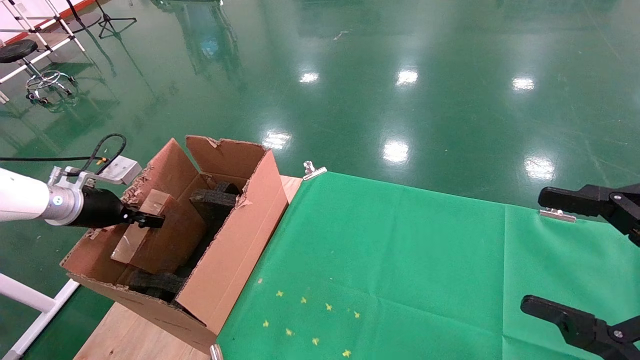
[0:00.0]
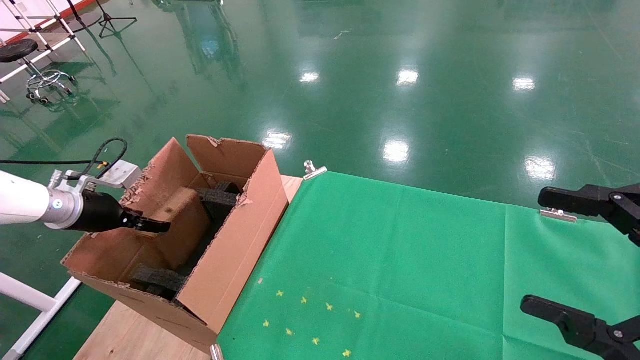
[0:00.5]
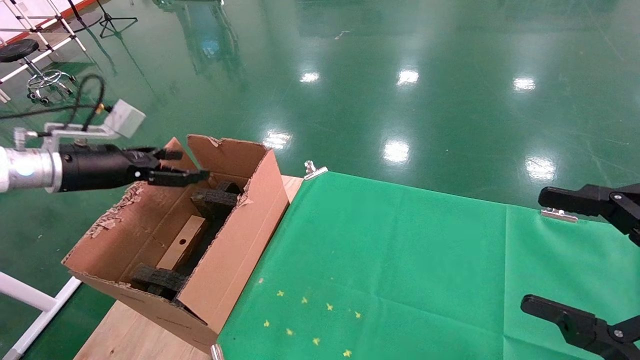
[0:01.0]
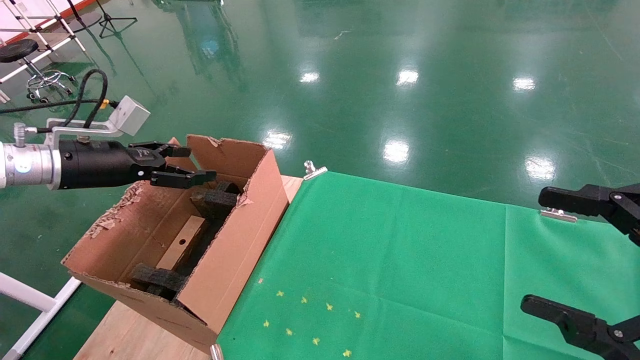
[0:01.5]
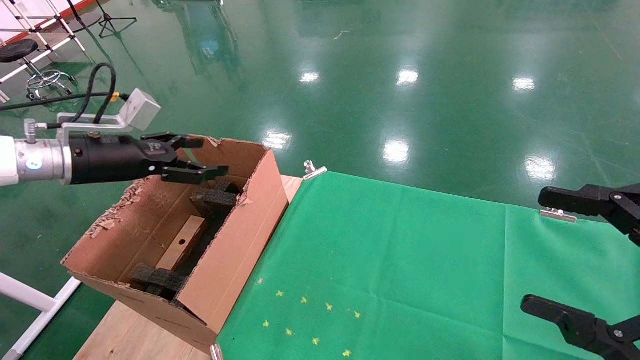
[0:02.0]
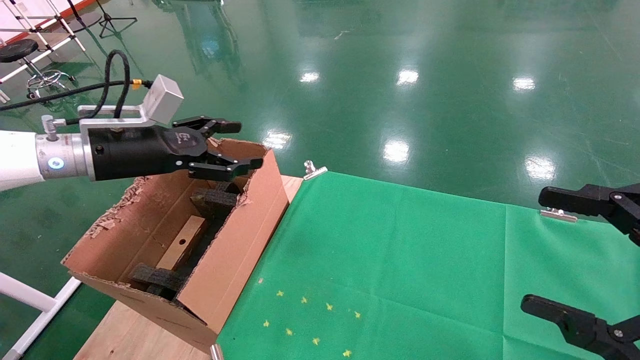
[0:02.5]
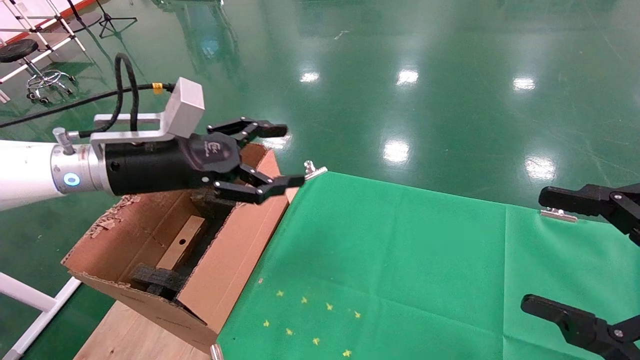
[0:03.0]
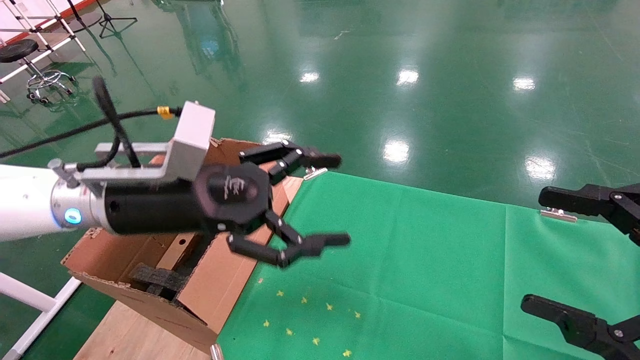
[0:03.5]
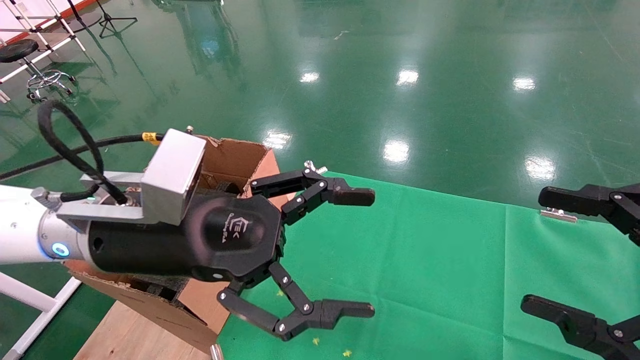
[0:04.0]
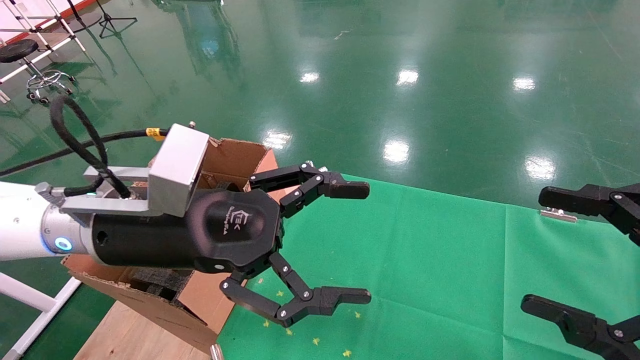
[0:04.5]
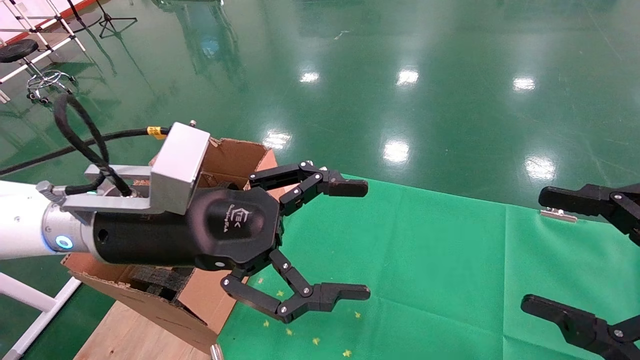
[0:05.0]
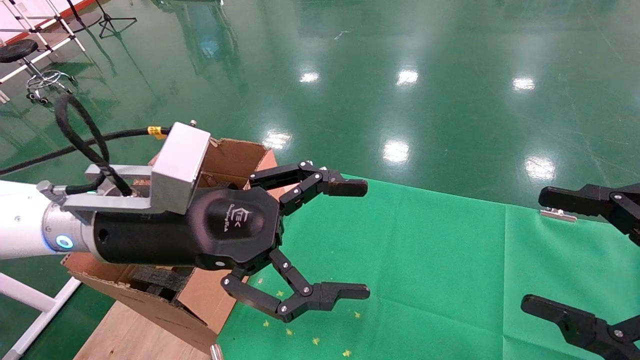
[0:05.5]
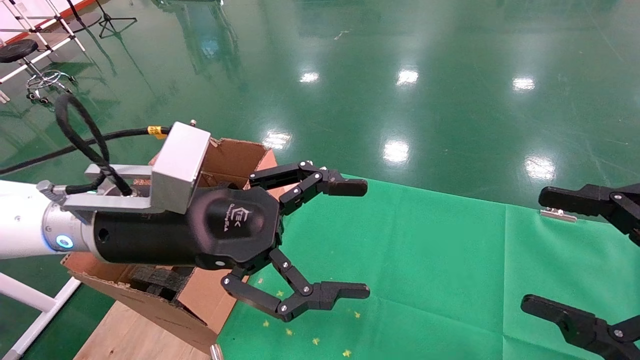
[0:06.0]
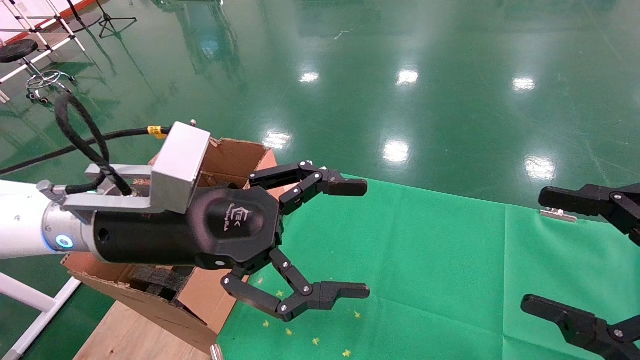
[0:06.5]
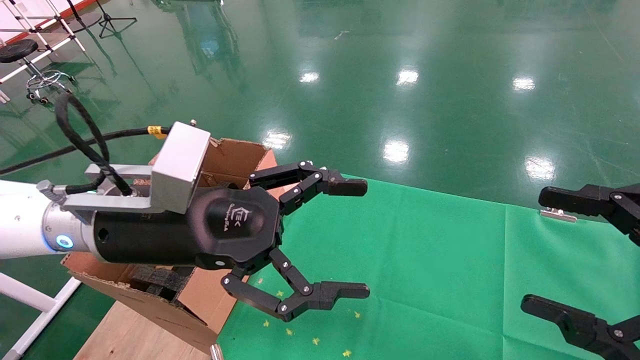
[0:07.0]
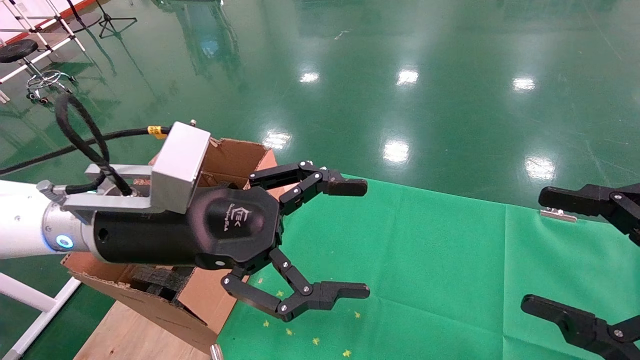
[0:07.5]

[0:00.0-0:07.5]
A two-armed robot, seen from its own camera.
Task of the whole recording: using a robotic arm to pick up a cardboard box and palace it the carton.
0:00.0 to 0:02.0: The left gripper moves upward and to the right, roughly 15 cm, and opens up.
0:02.0 to 0:04.0: The left gripper shifts approximately 25 cm to the right and backward.
0:04.0 to 0:07.5: Neither gripper changes place.

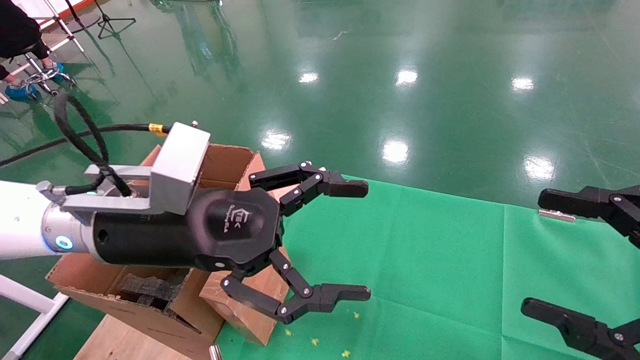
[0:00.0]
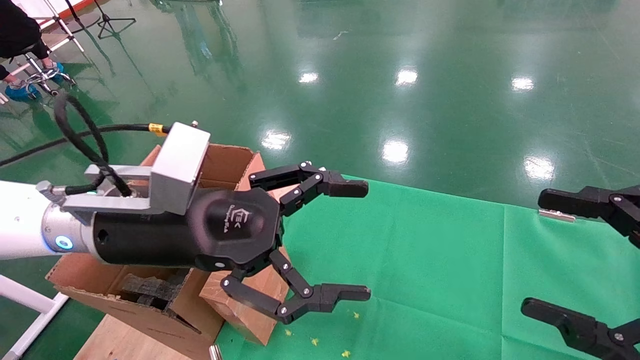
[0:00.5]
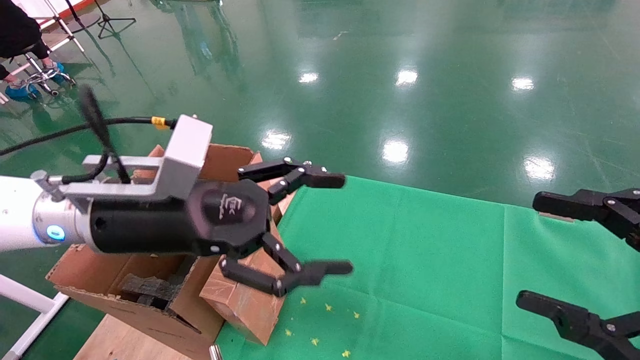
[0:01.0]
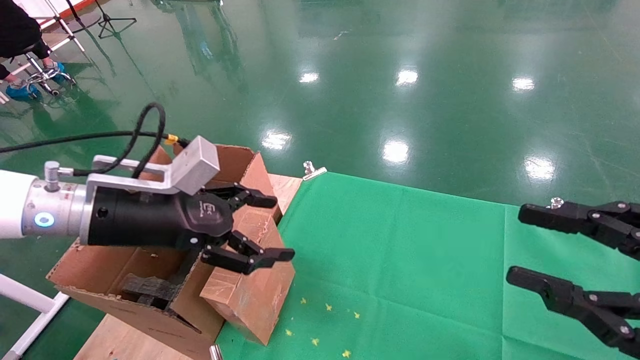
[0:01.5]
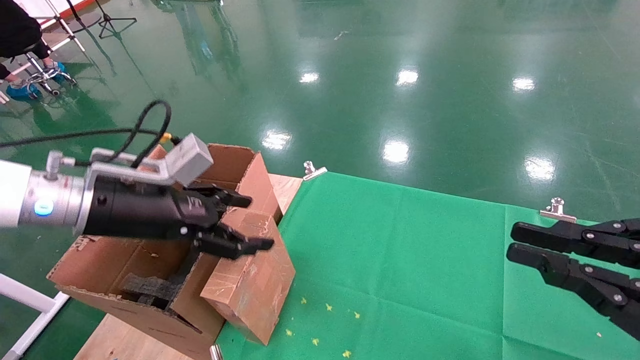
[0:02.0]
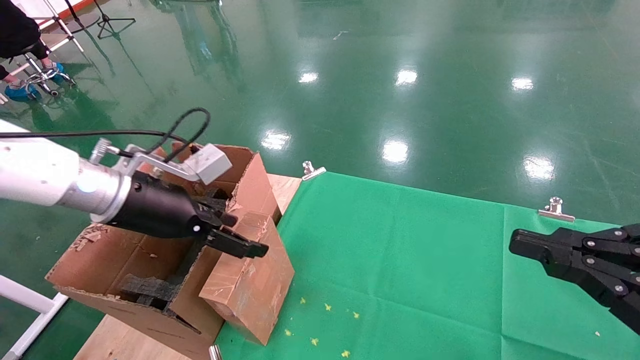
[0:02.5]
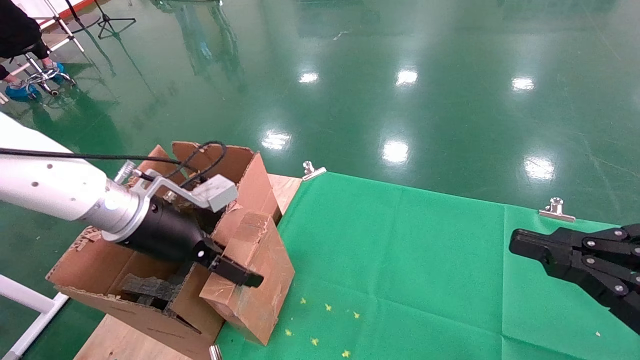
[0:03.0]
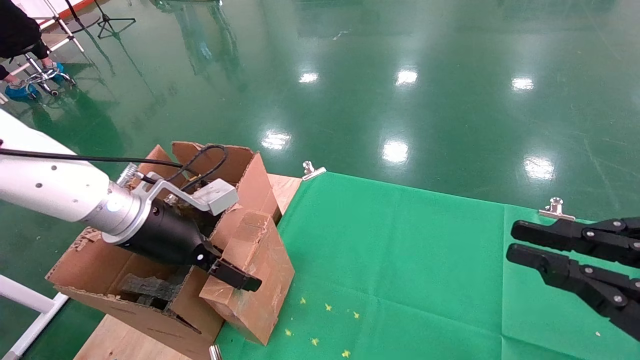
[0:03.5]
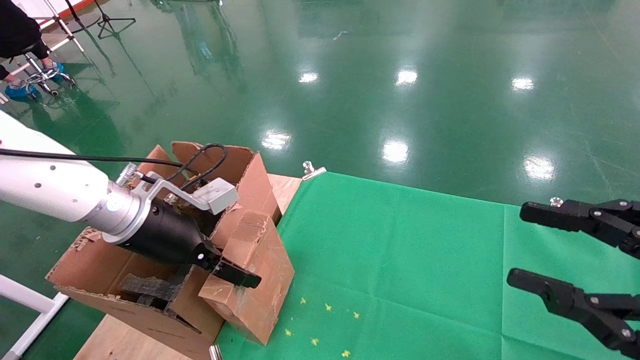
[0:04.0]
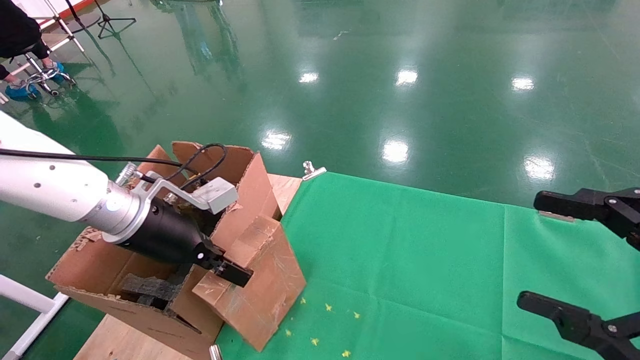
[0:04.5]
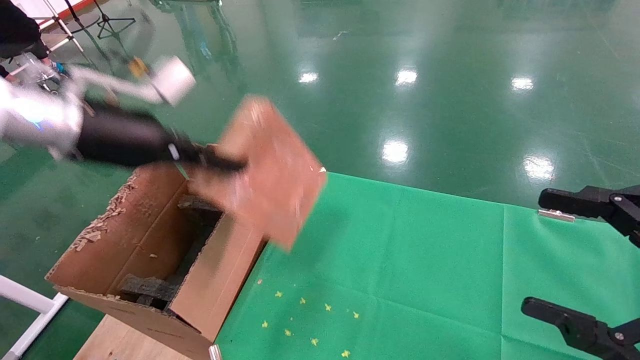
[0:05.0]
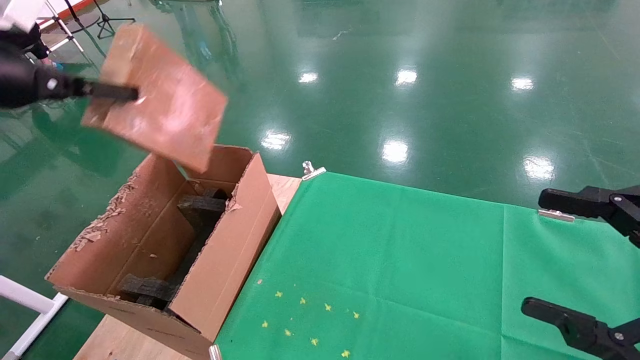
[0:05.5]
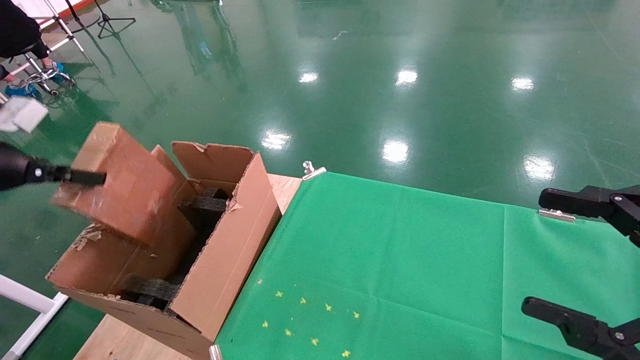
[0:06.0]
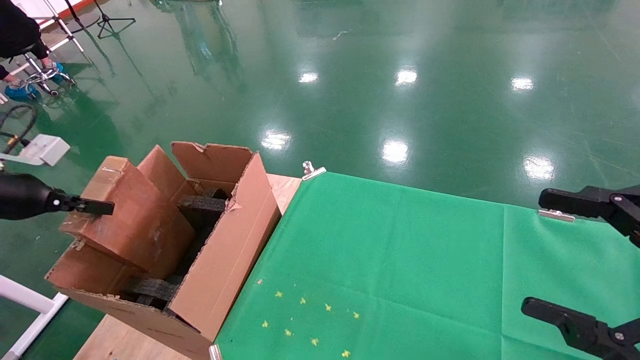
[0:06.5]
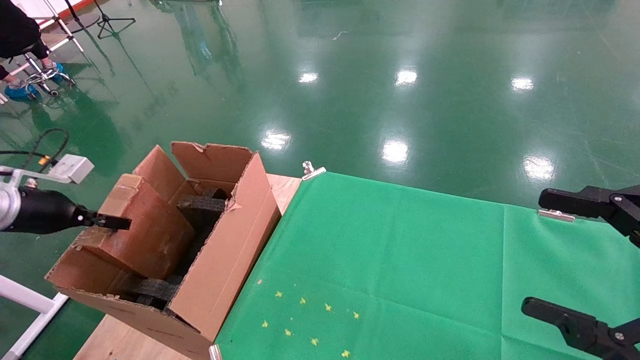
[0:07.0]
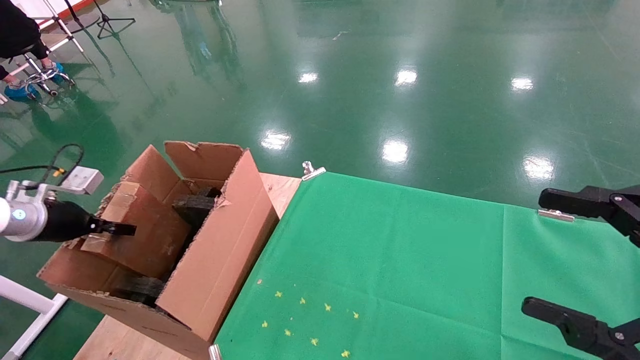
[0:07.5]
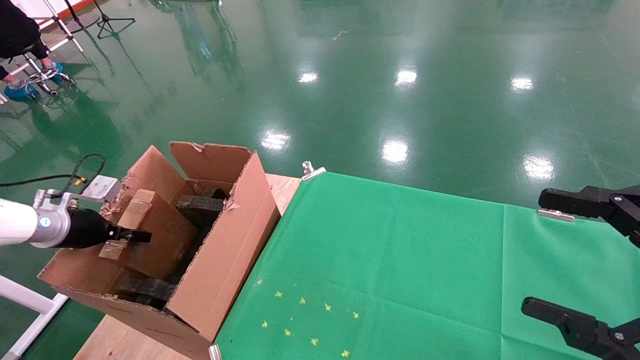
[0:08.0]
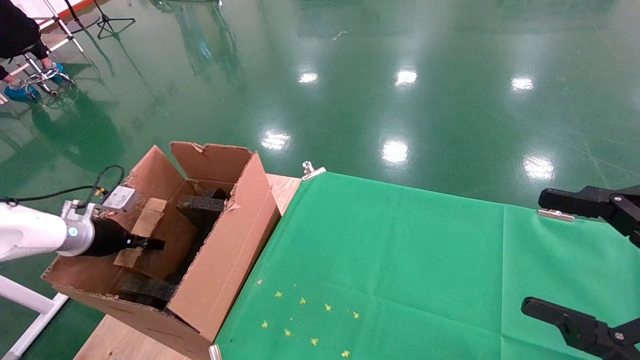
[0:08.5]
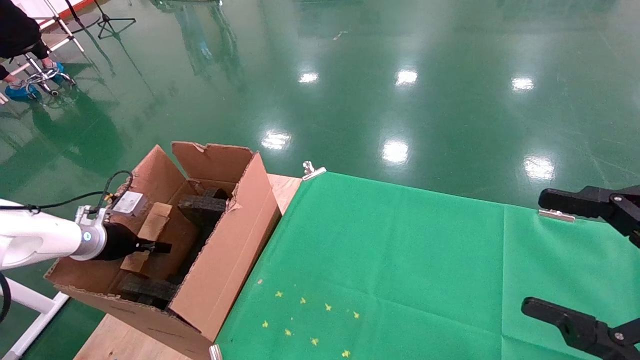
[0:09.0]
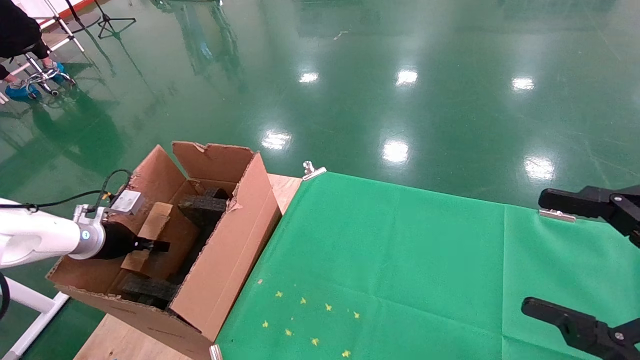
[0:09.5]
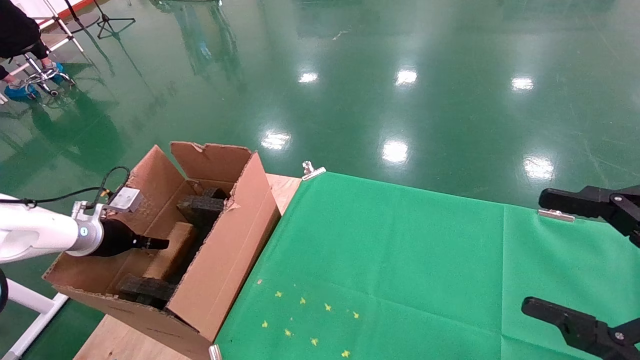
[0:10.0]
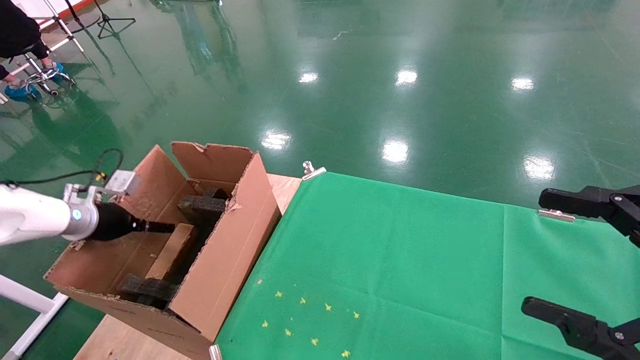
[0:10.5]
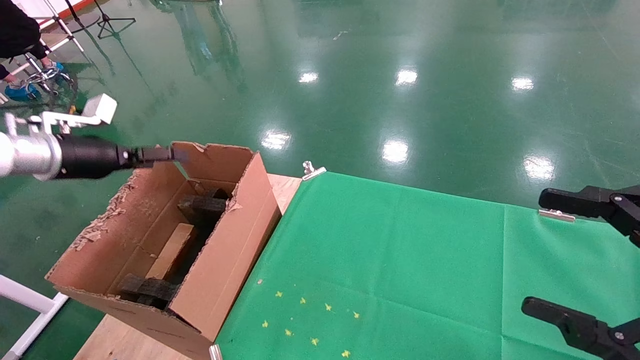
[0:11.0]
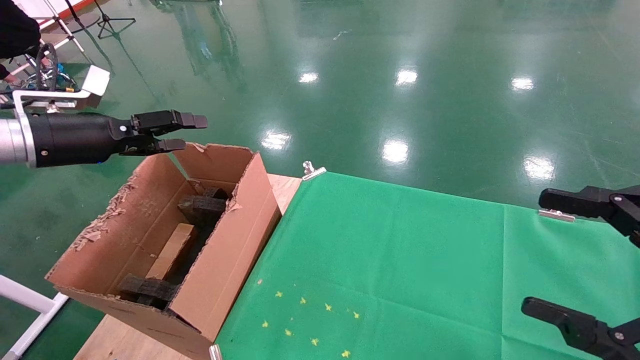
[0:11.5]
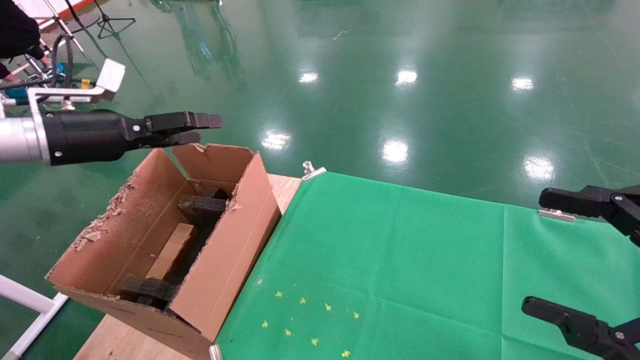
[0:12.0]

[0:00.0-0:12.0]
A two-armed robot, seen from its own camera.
Task of the whole recording: using a robotic arm to pick up a cardboard box and palace it the carton.
Step, 0:01.5 to 0:04.0: Pick up the mouse and the power cord paper box.
Step, 0:04.5 to 0:11.0: Place the mouse and the power cord paper box into the container.
0:00.0 to 0:02.0: The right gripper closes its fingers. The left gripper is displaced to the left by roughly 10 cm.
0:04.0 to 0:06.0: The left gripper is displaced to the left by roughly 25 cm, and closes; the right gripper opens.
0:06.0 to 0:08.0: The left gripper is displaced downward and forward by approximately 20 cm.
0:08.0 to 0:10.0: The left gripper changes place by some 5 cm, and opens.
0:10.0 to 0:12.0: The left gripper is displaced upward and to the right by about 20 cm, and opens.
